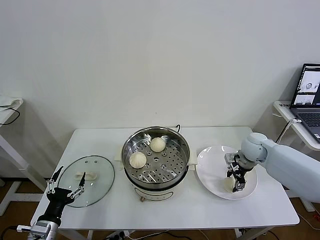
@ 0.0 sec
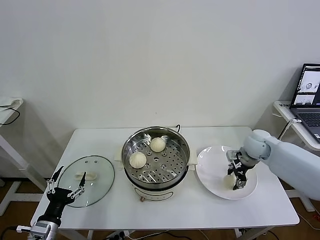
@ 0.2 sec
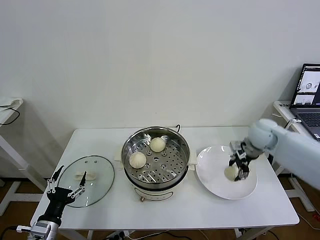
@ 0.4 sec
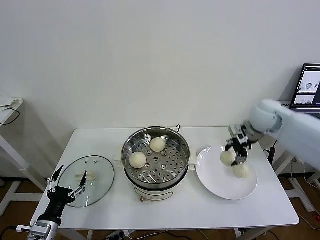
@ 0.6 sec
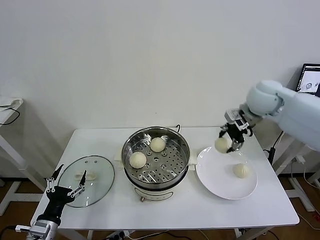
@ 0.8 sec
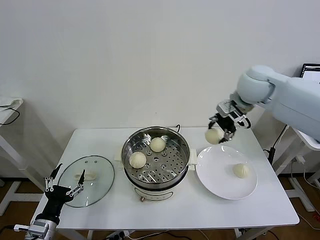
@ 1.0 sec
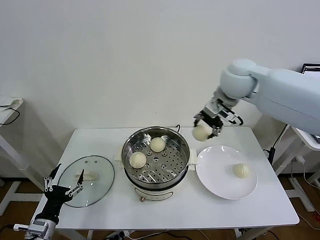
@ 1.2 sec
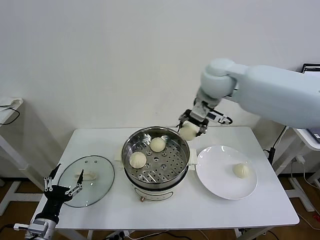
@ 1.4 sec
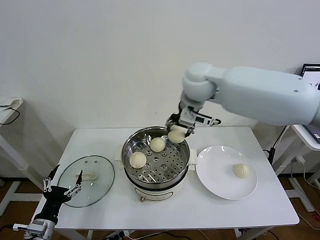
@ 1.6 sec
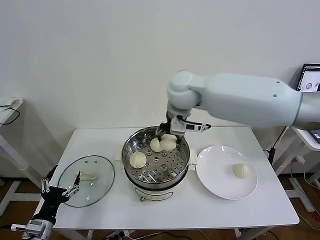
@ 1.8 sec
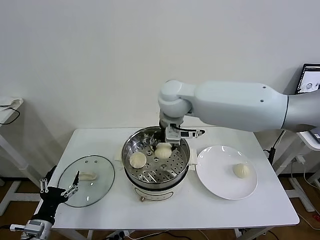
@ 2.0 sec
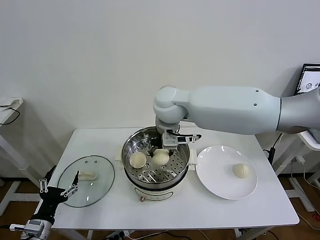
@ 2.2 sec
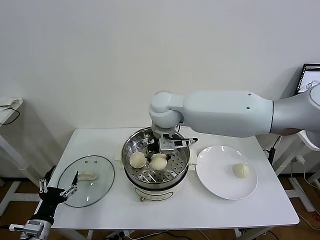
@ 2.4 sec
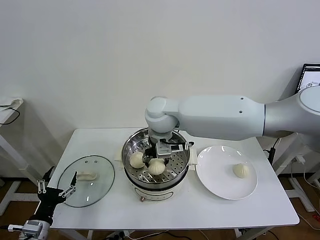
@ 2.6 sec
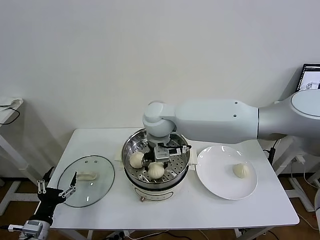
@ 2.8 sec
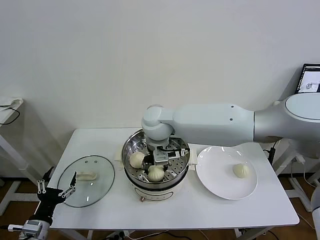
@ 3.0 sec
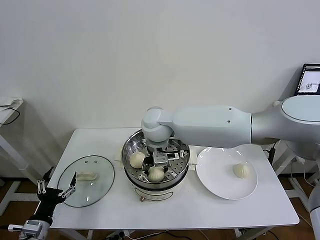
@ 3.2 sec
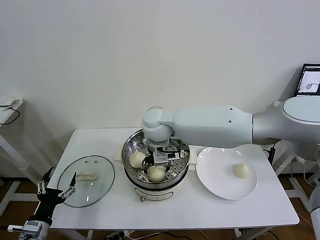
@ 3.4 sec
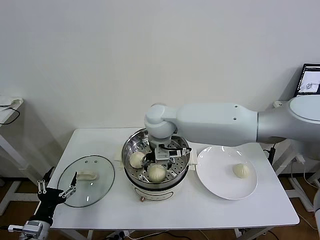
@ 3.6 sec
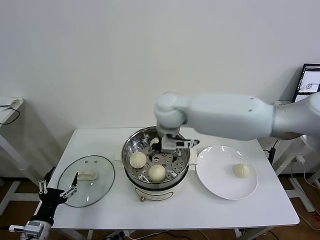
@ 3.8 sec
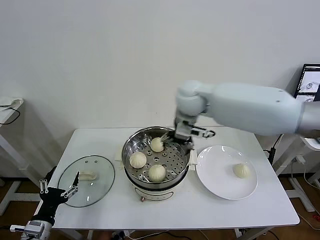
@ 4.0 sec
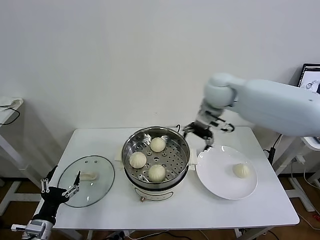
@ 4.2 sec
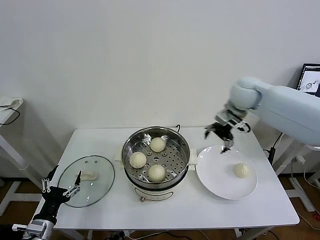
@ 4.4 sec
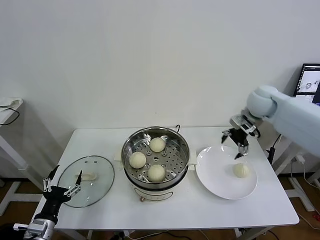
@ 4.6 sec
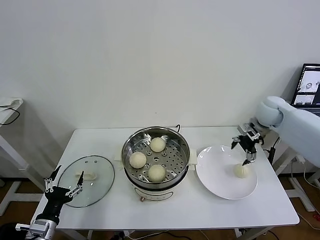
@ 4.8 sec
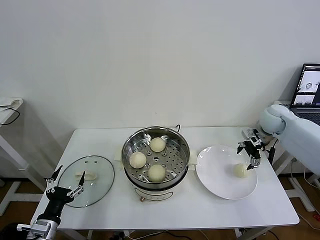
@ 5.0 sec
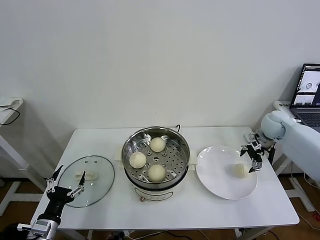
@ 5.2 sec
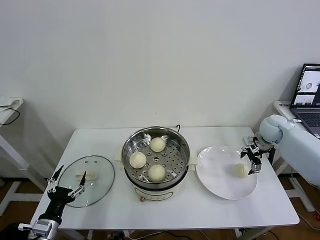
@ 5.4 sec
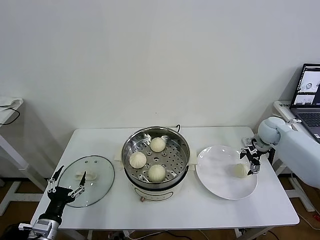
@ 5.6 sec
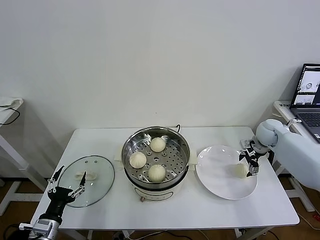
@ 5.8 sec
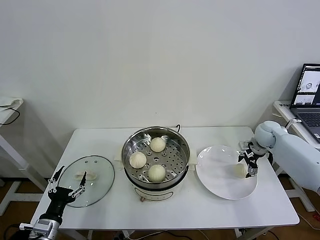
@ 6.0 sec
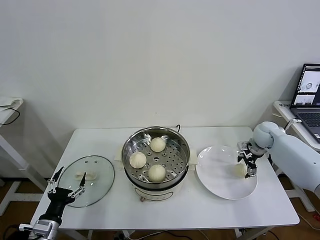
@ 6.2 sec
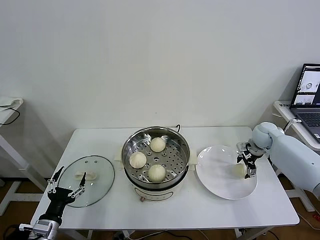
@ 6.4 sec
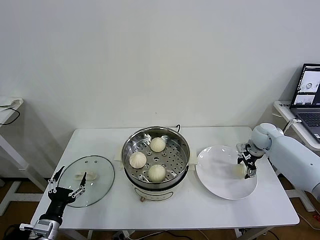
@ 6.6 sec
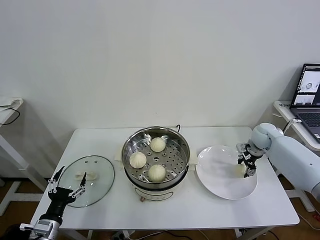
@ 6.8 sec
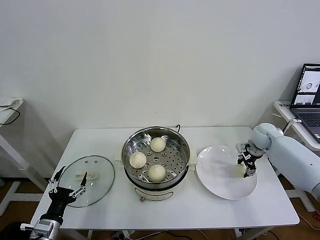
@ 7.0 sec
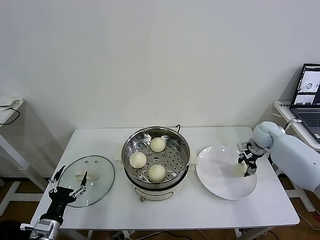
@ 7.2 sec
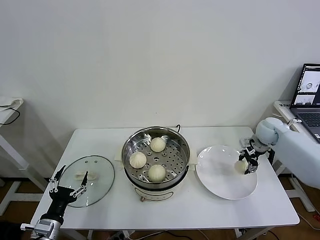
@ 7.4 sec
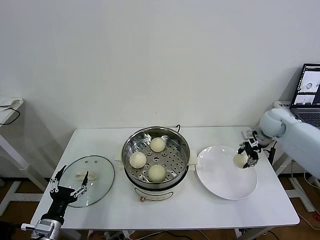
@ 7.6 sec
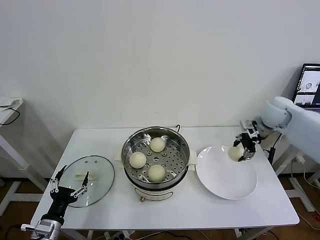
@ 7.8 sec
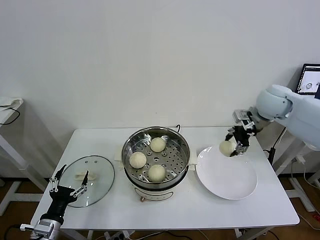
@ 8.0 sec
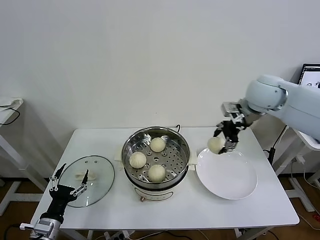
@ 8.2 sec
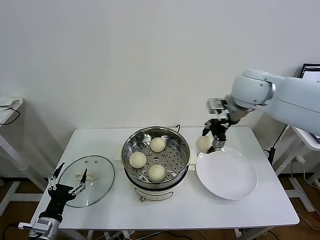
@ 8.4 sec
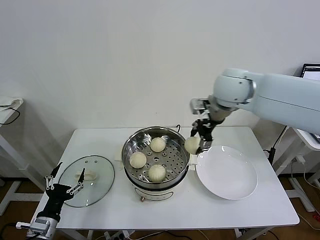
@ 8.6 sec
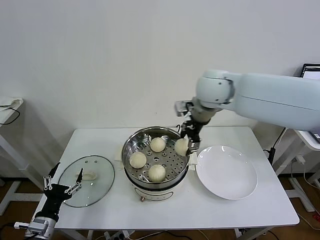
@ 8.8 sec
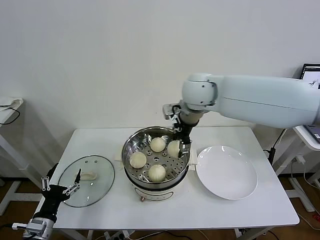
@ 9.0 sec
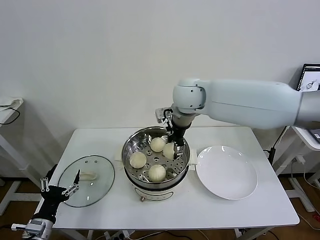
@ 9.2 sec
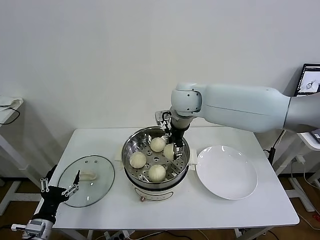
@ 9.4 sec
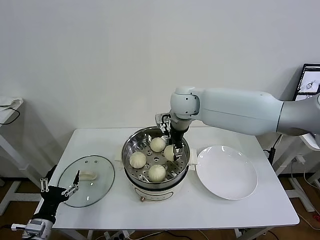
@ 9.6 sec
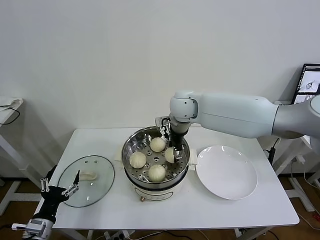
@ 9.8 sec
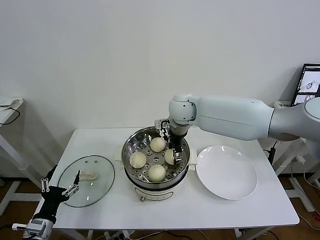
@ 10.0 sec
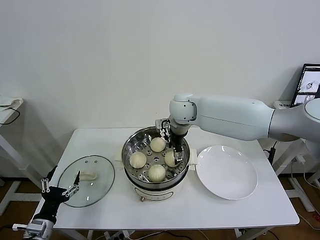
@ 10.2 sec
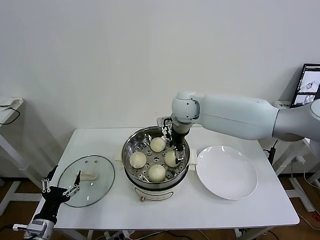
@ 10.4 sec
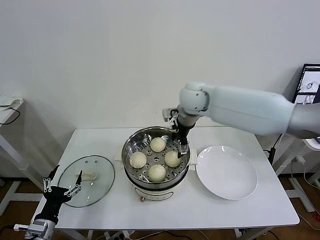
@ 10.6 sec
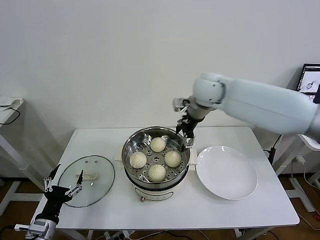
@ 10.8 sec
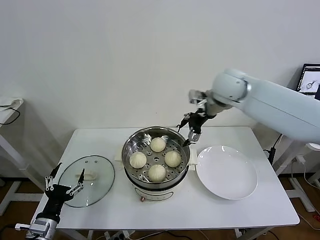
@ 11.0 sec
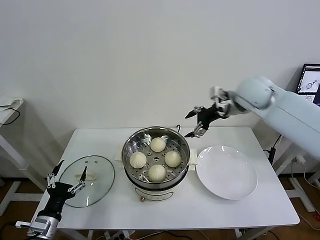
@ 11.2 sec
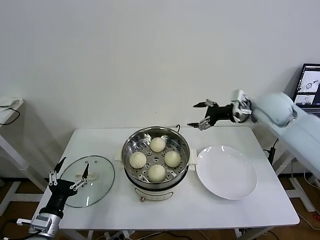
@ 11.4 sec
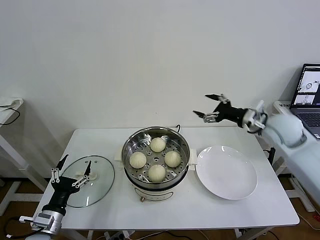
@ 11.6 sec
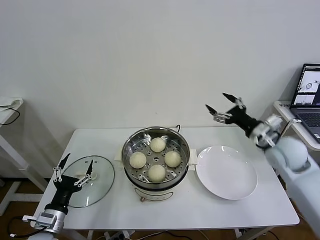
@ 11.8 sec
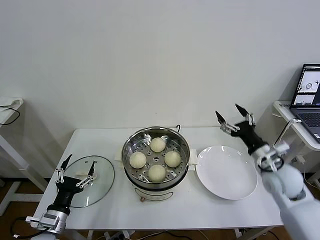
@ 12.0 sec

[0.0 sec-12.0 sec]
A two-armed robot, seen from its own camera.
Task of the whole recording: take steamed baozi put them in steamer then cover it.
Step, 0.2 sec to 3.4 sec: Place the baozi on the steamer with right gripper.
Step, 3.8 sec to 6.8 sec: Grasp the baozi in the plate with right gripper.
Step, 7.0 sec to 10.2 sec: Place the baozi on the steamer with right gripper.
0.0 sec to 1.6 sec: The right gripper moves to the left and upward, about 35 cm.
1.6 sec to 3.0 sec: The right gripper moves downward and to the left, some 15 cm.
3.0 sec to 4.4 sec: The right gripper heads to the right, covering approximately 30 cm, and opens.
4.4 sec to 6.0 sec: The right gripper goes approximately 25 cm downward and to the right.
6.0 sec to 7.6 sec: The right gripper heads upward, covering roughly 10 cm, and closes.
7.6 sec to 9.0 sec: The right gripper moves to the left and upward, approximately 35 cm.
9.0 sec to 10.4 sec: The right gripper is displaced downward by roughly 10 cm, and opens.
10.4 sec to 12.0 sec: The right gripper heads to the right, backward and downward, covering roughly 35 cm.

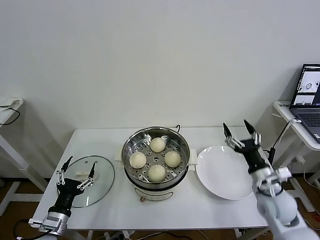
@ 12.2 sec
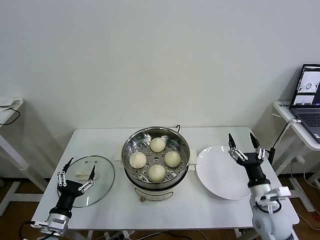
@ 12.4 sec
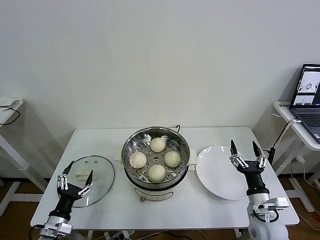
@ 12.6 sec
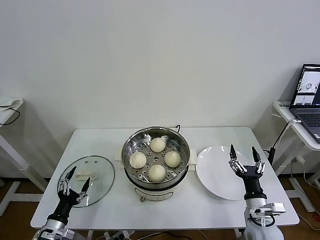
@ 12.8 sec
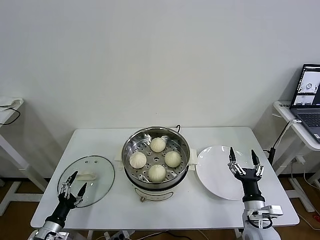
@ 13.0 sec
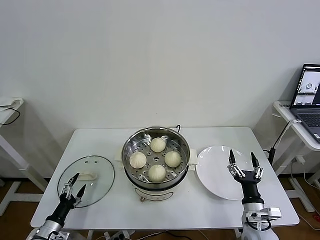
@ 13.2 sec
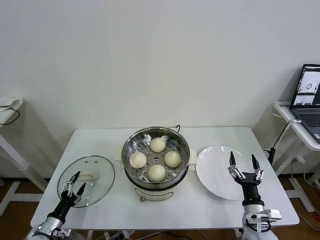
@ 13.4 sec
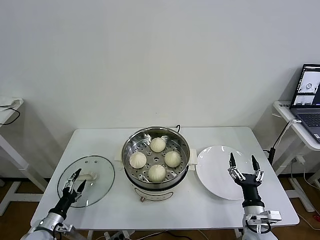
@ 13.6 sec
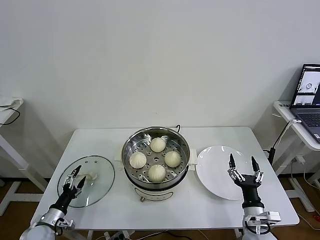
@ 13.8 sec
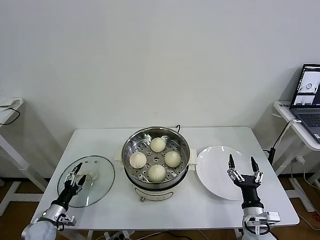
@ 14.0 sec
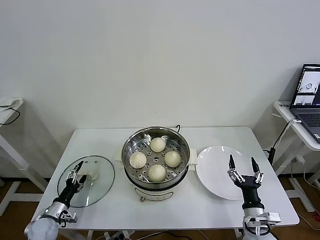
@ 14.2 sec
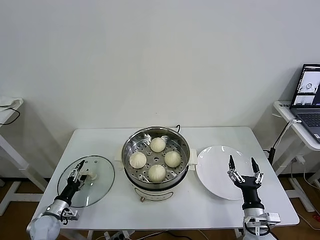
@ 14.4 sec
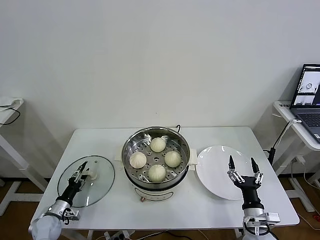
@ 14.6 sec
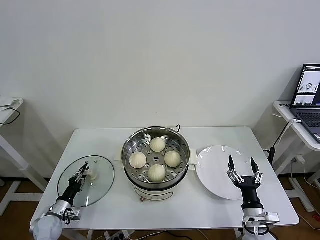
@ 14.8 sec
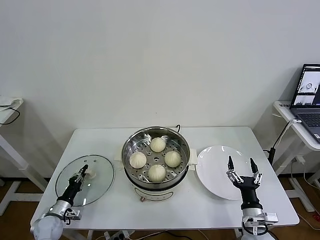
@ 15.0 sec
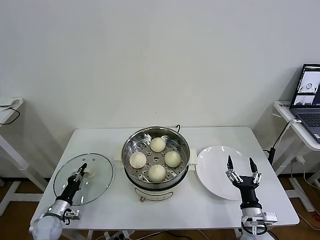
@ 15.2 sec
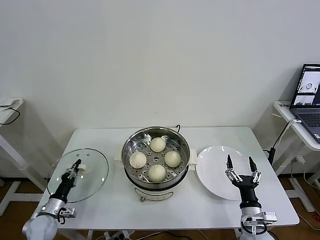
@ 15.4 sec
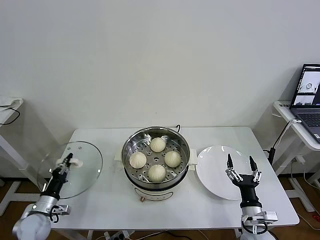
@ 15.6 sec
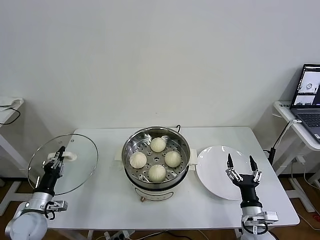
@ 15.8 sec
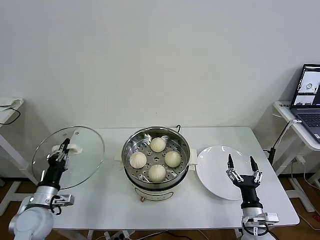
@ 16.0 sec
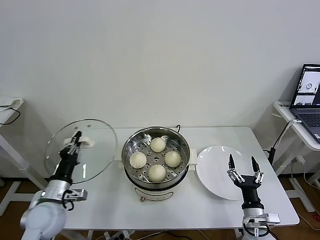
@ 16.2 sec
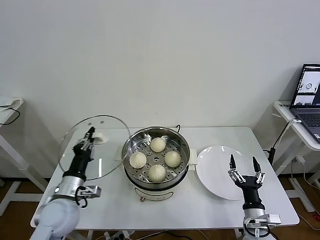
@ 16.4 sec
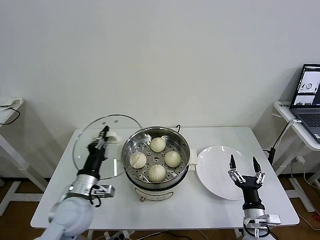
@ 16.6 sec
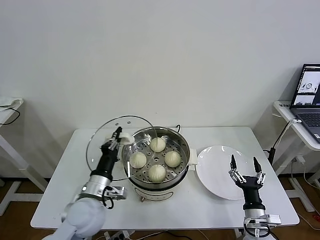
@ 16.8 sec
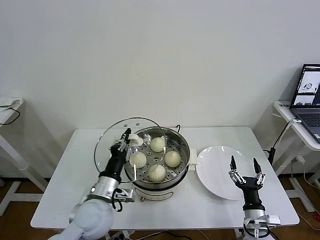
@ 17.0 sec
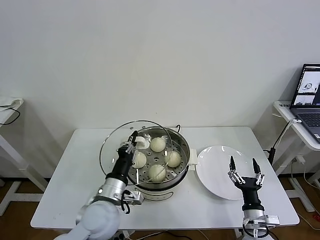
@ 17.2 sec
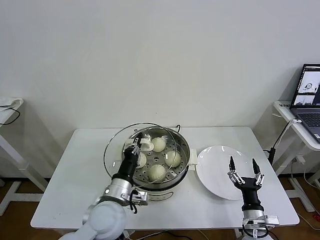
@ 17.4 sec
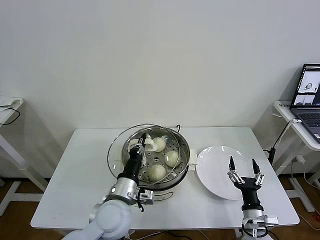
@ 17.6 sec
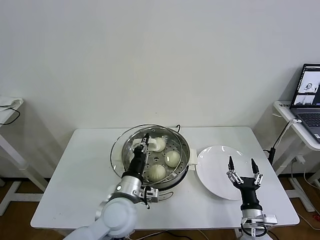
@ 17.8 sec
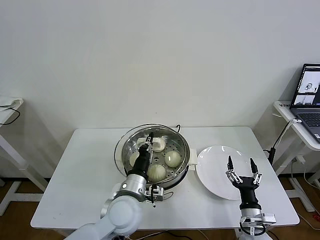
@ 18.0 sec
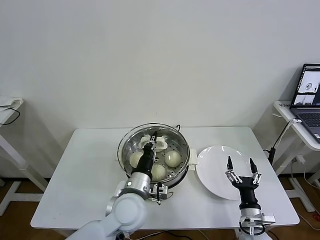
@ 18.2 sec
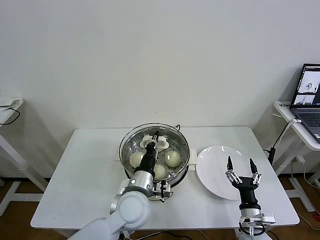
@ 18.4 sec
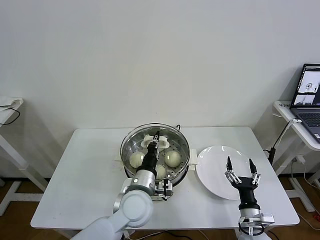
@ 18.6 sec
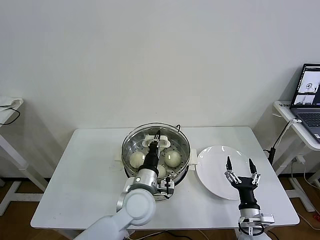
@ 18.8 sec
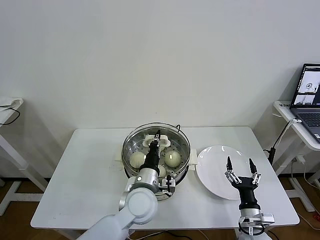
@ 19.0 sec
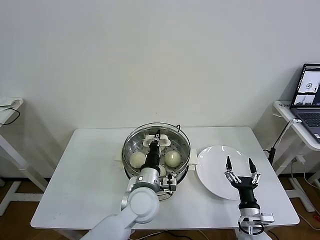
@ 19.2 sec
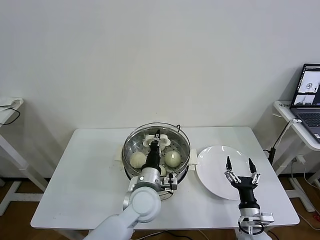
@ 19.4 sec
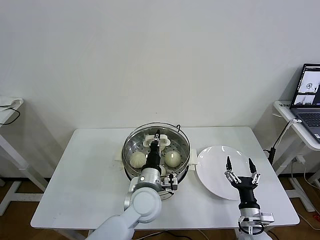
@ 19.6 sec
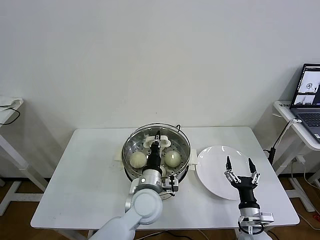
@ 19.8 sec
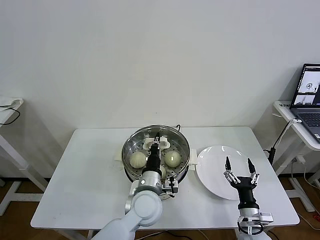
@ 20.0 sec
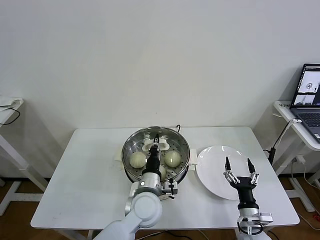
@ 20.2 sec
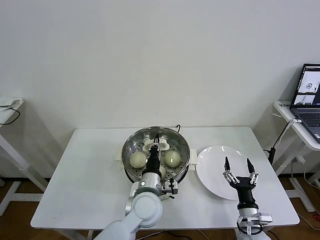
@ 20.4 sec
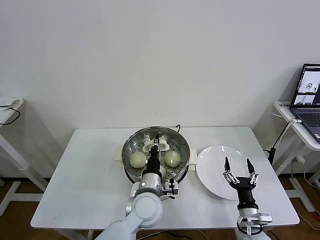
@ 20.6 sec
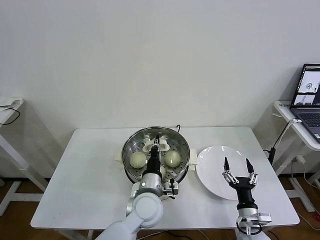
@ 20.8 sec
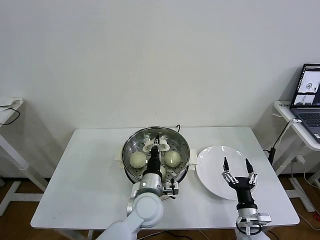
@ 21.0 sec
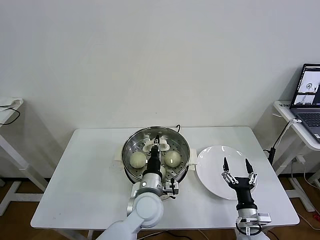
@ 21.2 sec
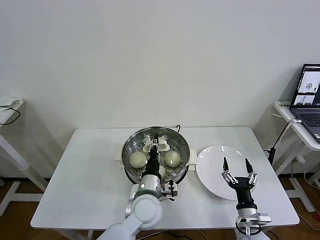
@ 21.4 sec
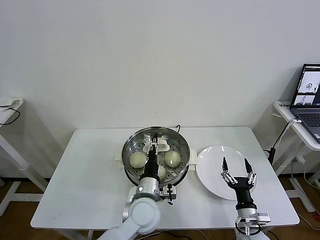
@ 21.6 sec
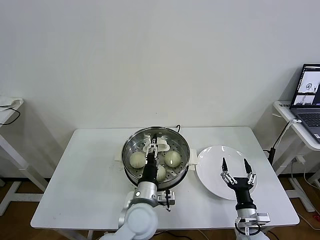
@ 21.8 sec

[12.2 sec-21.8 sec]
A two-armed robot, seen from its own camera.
Task of the whole recording: take steamed baozi put them in steamer then cover it.
Step, 12.2 sec to 15.0 sec: Grasp the pot lid with left gripper.
Step, 15.4 sec to 21.6 sec: Place the pot lid on the steamer with left gripper.
12.2 sec to 13.8 sec: The right gripper heads downward and backward, covering roughly 15 cm. Meanwhile the left gripper is displaced downward and to the left by about 15 cm.
13.8 sec to 15.4 sec: The left gripper closes up.
15.4 sec to 17.0 sec: The left gripper shifts some 30 cm to the right and upward.
17.0 sec to 18.6 sec: The left gripper shifts approximately 10 cm to the right.
18.6 sec to 20.2 sec: There are only small adjustments of the grippers.
20.2 sec to 21.8 sec: The left gripper opens.
